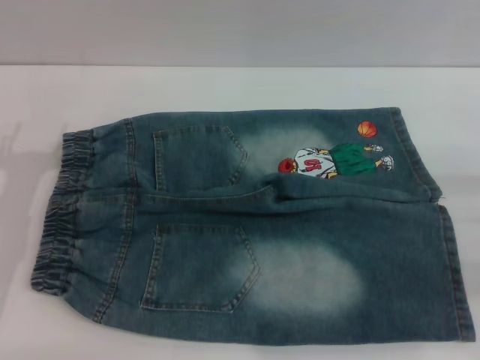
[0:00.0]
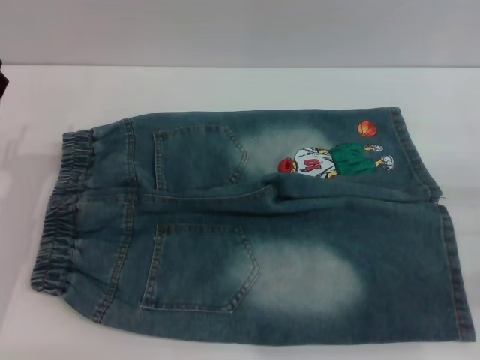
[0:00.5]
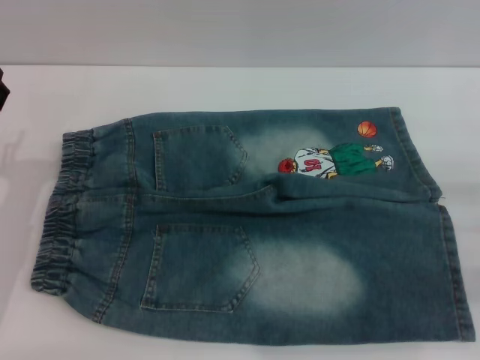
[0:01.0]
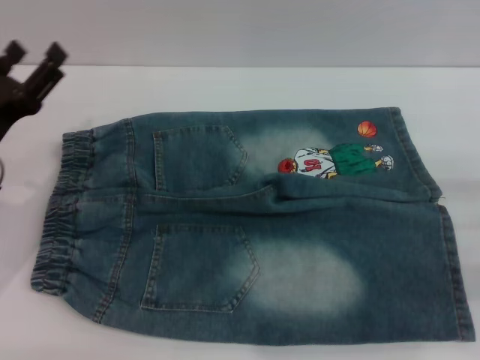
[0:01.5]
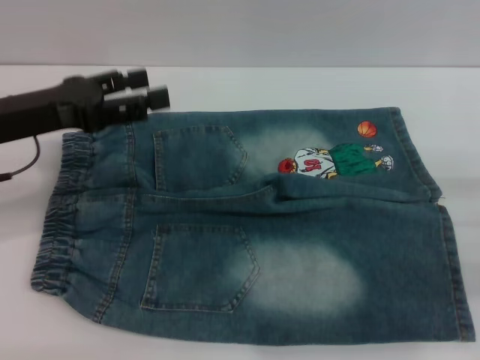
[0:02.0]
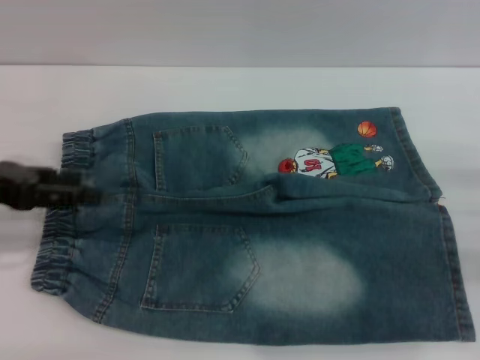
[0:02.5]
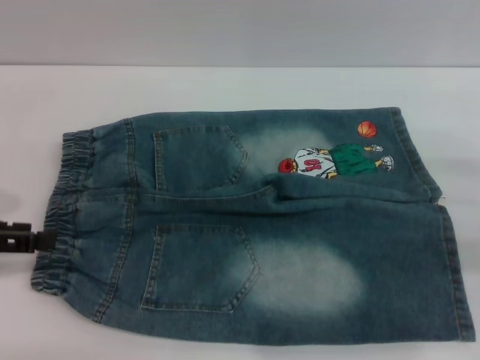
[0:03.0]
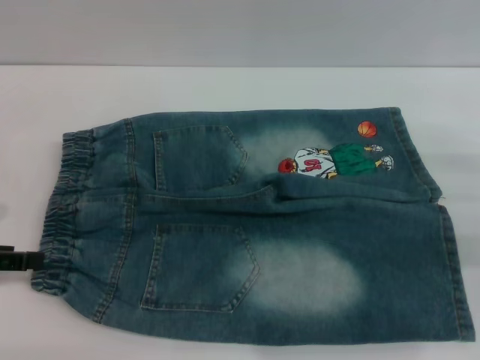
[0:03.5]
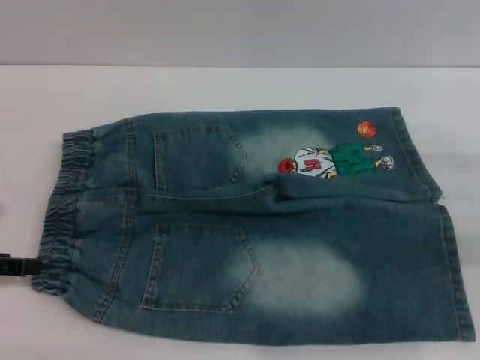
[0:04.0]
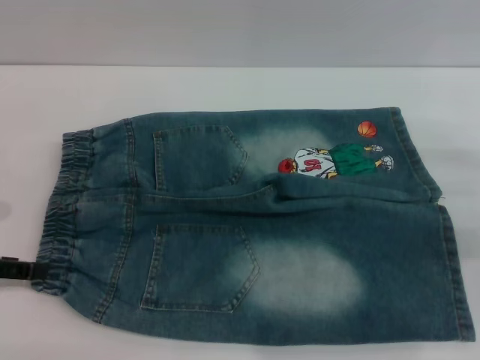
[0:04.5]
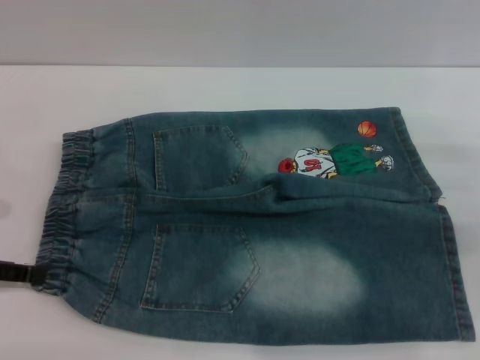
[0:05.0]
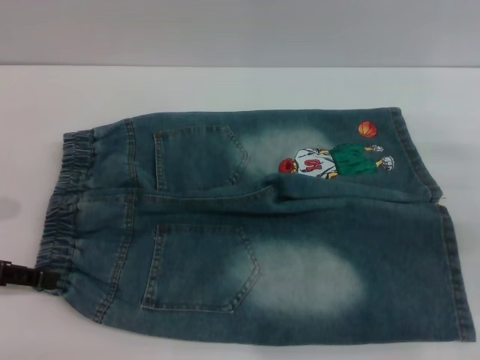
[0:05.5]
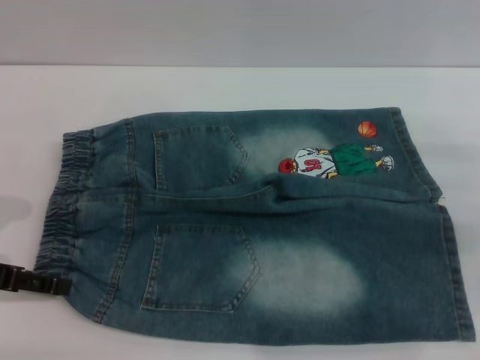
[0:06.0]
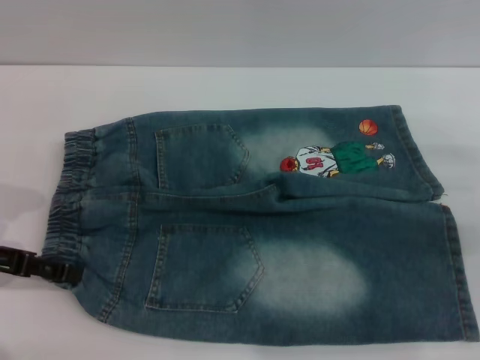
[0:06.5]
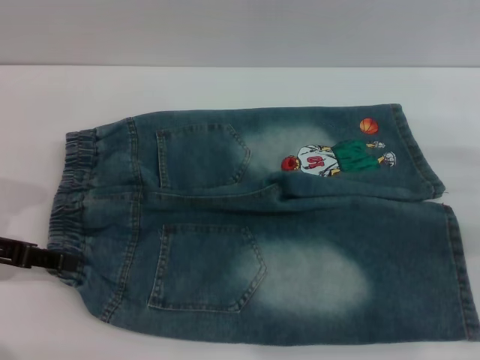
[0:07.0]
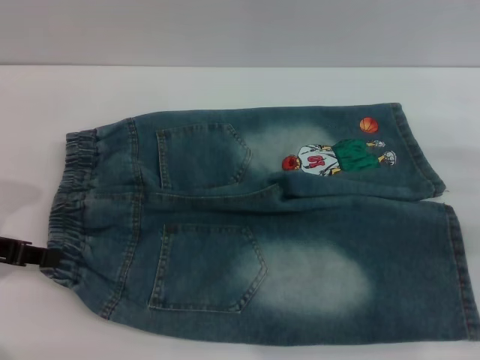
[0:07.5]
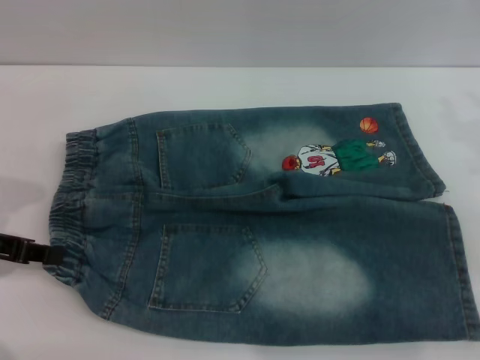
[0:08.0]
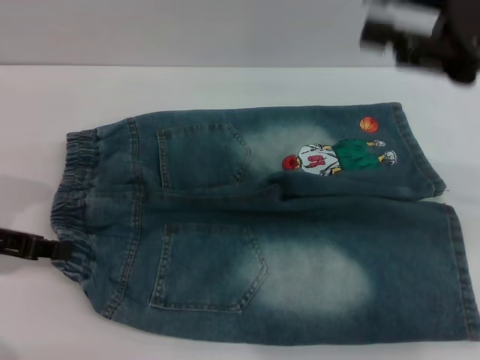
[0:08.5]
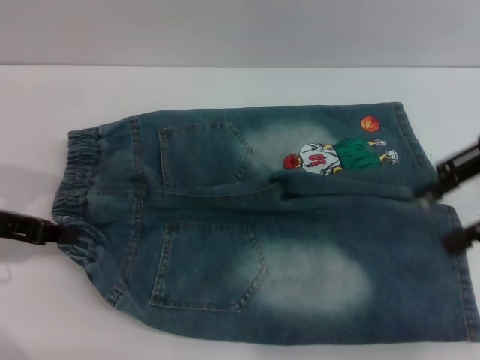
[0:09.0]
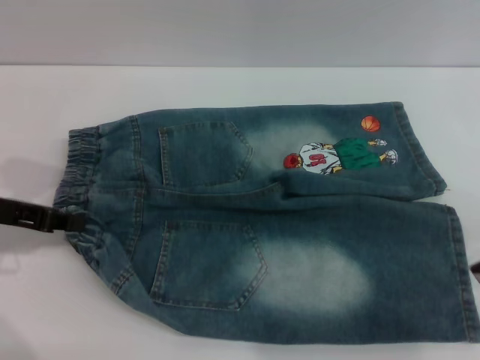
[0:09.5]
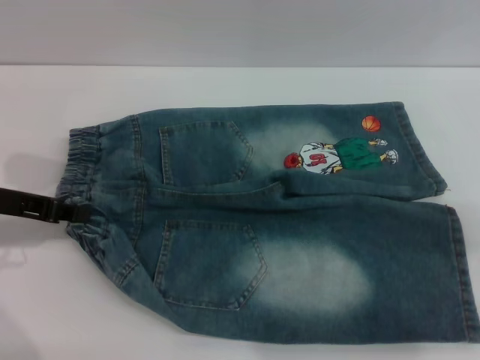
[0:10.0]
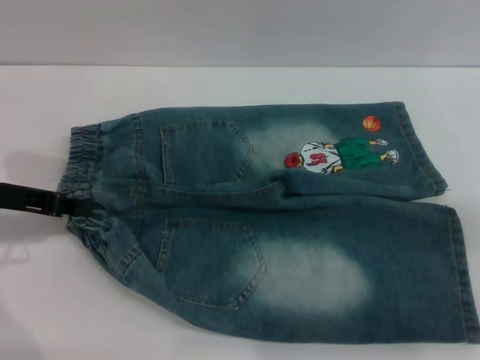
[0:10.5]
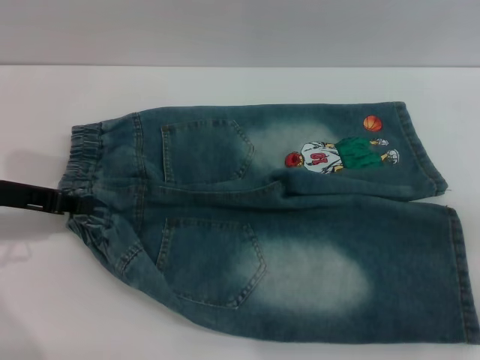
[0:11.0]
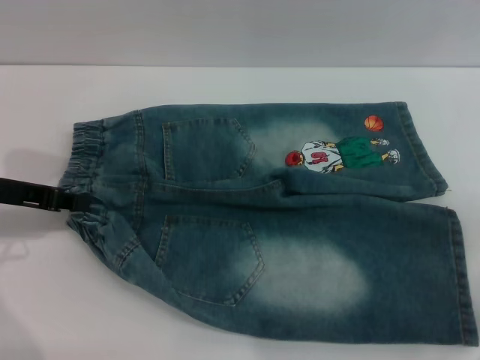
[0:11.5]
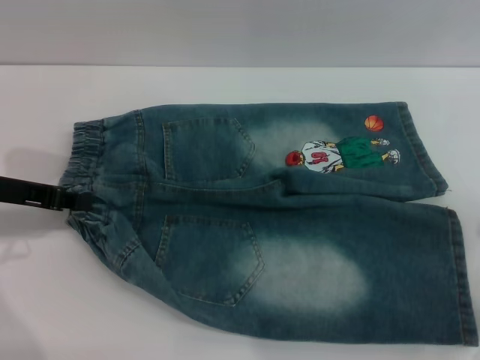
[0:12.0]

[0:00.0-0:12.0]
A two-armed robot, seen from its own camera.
0:00.0 to 0:02.0: The left gripper shifts approximately 10 cm upward.
0:02.0 to 0:04.0: The left gripper shifts about 10 cm to the left and backward.
0:04.0 to 0:06.0: The grippers stay close to where they were, moving slightly.
0:06.0 to 0:08.0: The left gripper closes.
0:08.0 to 0:10.0: The right gripper goes roughly 10 cm to the right, backward and upward.
0:10.0 to 0:12.0: The right gripper changes place by about 5 cm.

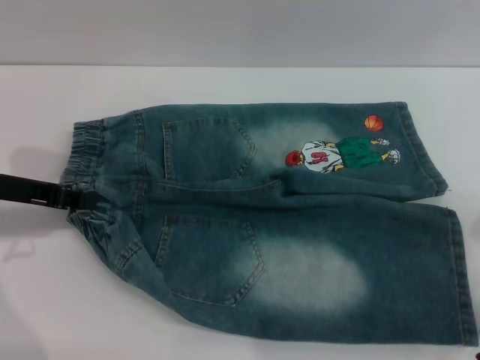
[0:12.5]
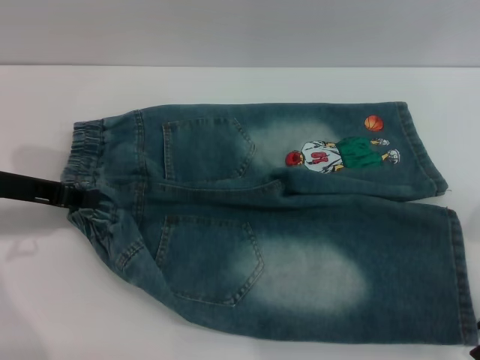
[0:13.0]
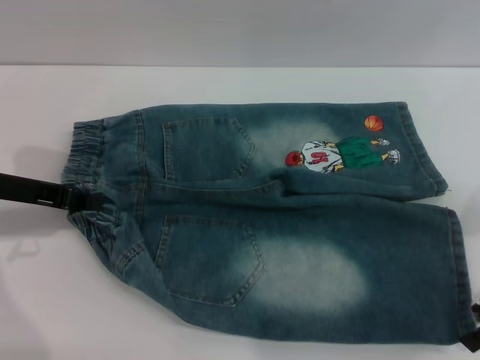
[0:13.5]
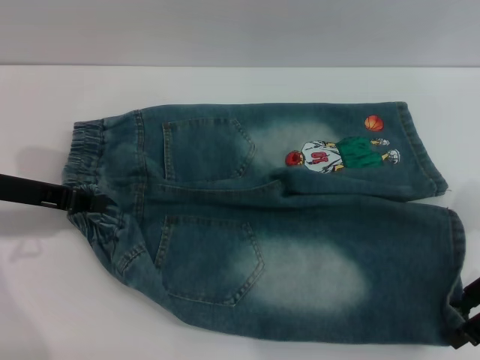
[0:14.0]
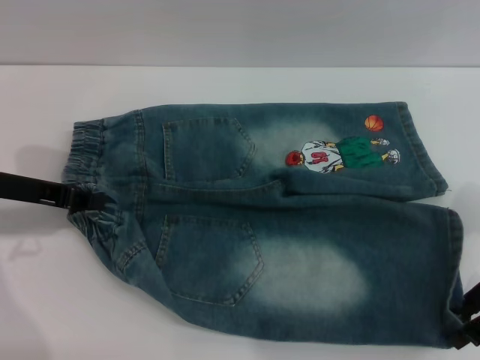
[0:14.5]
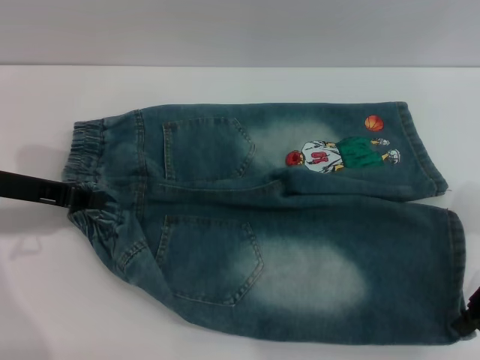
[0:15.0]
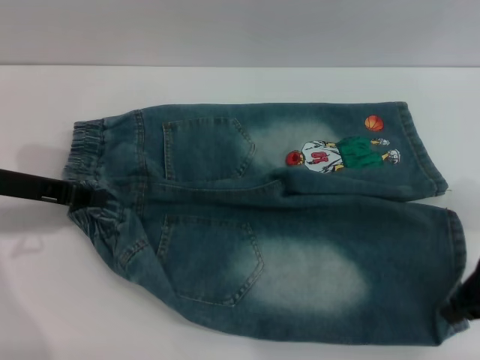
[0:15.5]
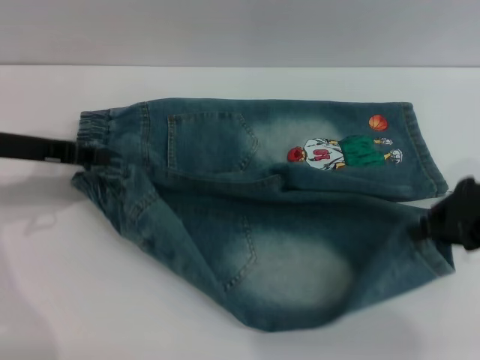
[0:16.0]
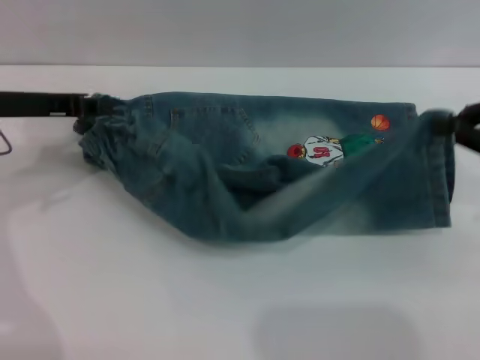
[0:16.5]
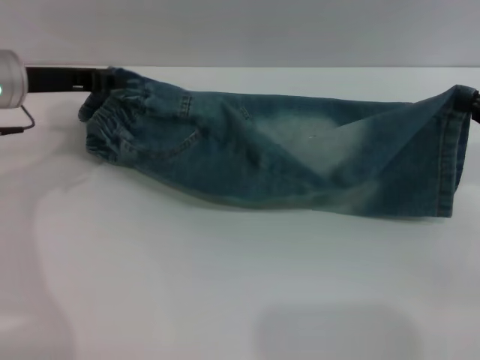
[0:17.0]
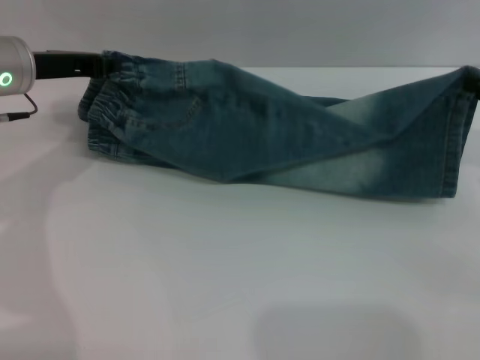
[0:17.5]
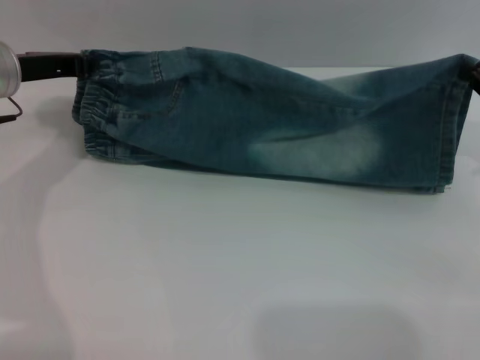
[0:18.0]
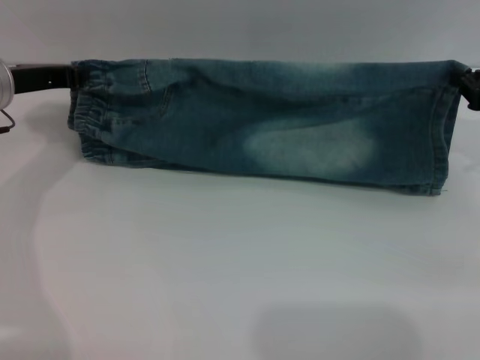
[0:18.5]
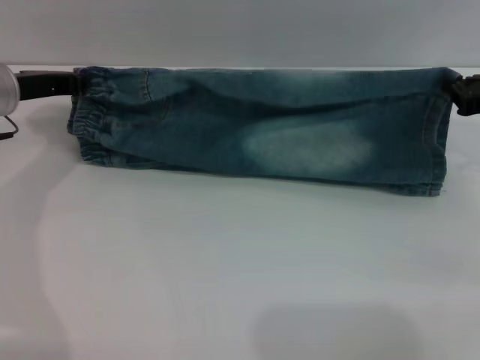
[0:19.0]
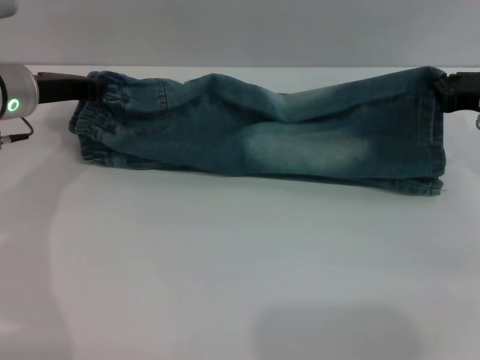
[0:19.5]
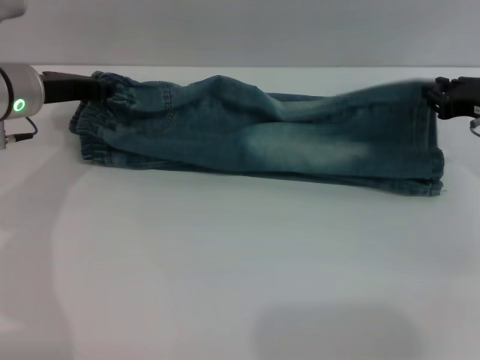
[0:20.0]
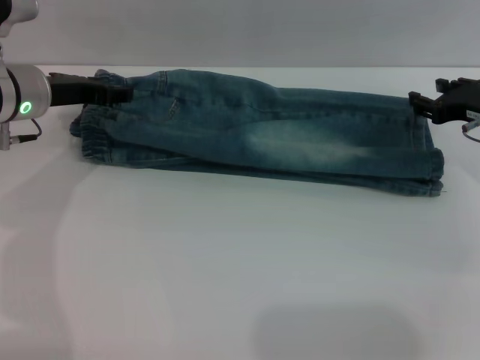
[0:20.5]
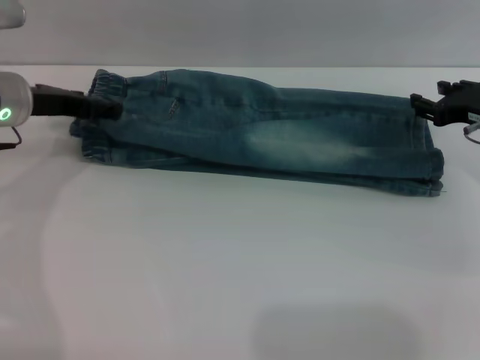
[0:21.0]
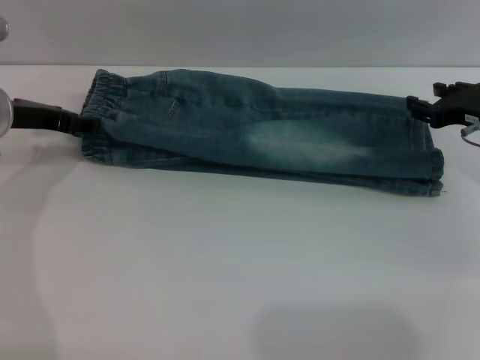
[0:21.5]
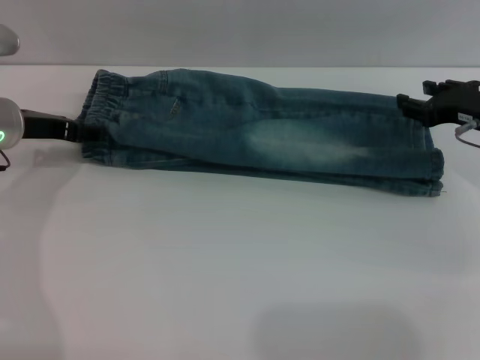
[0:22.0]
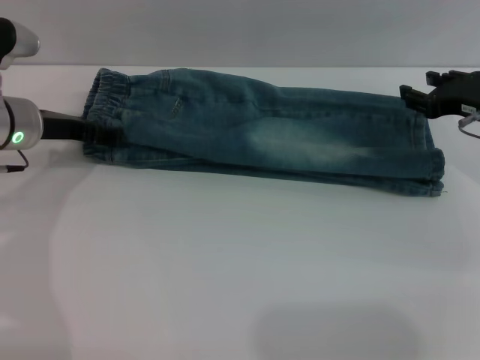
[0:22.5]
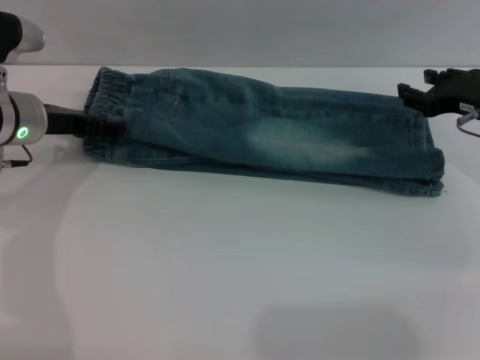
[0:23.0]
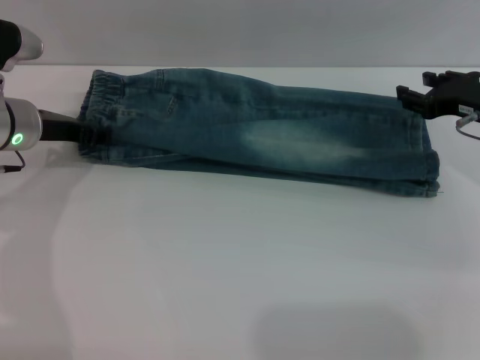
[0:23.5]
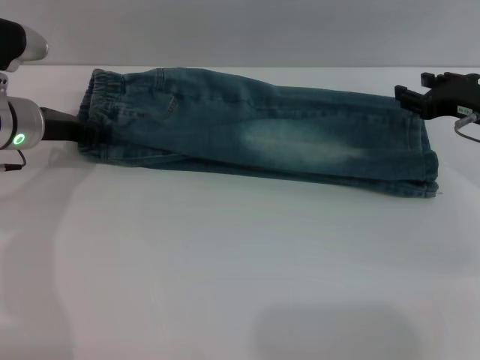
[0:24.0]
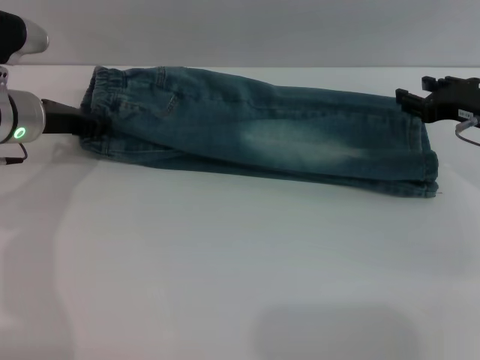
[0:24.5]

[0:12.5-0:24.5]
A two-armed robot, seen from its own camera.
Step, 0:12.5 to 0:21.0: Fold the bottom of the pants upward with both grippers.
0:12.5 to 0:14.5: There are only small adjustments of the grippers.
0:14.5 to 0:16.5: The right gripper shifts some 5 cm upward, and closes its fingers, while the left gripper shifts by about 5 cm.
0:16.5 to 0:18.5: The right gripper heads downward and forward, covering about 10 cm.
0:18.5 to 0:20.5: The left gripper opens, while the right gripper moves some 5 cm, and opens.
0:20.5 to 0:22.5: The left gripper opens.
0:22.5 to 0:24.5: The left gripper closes up.

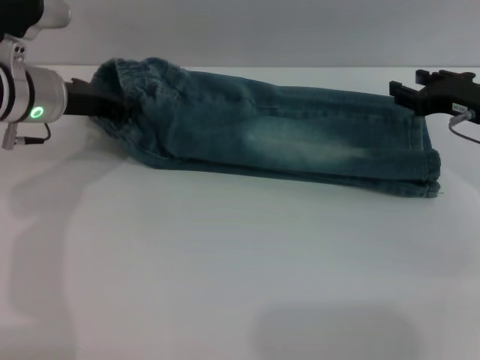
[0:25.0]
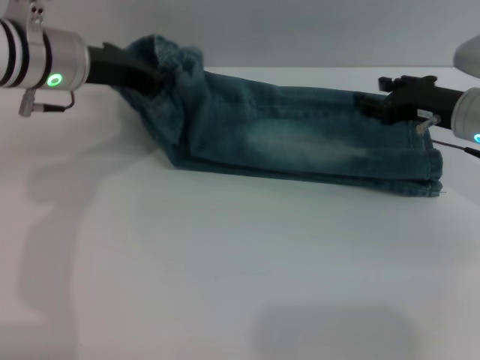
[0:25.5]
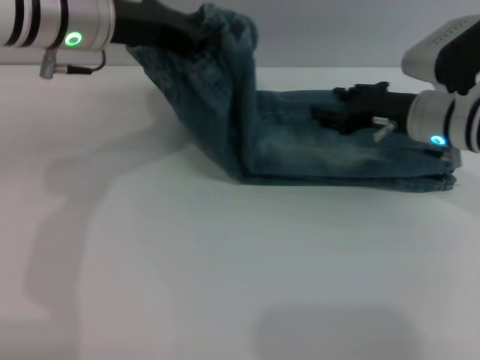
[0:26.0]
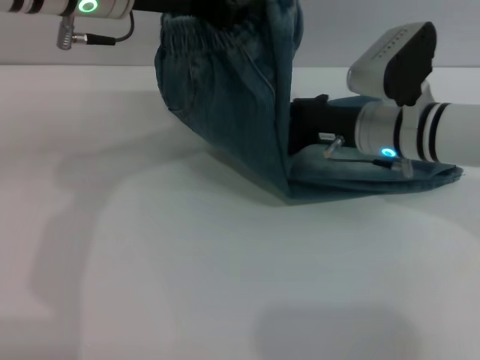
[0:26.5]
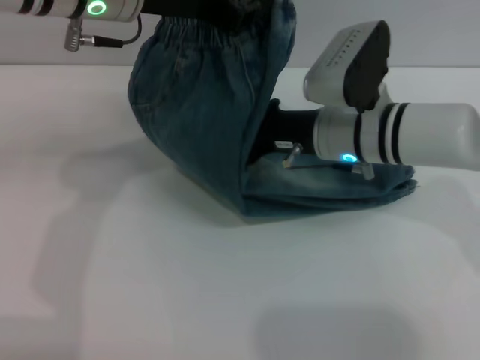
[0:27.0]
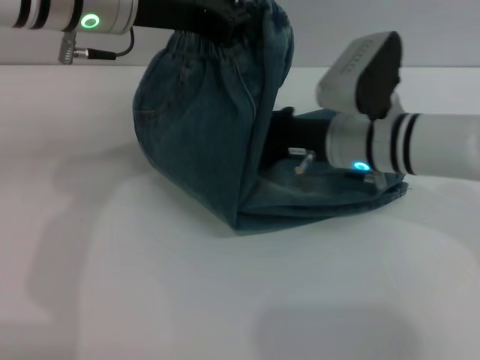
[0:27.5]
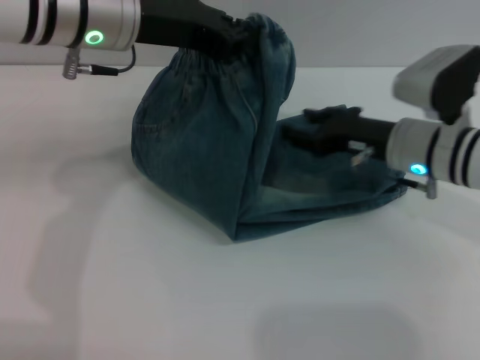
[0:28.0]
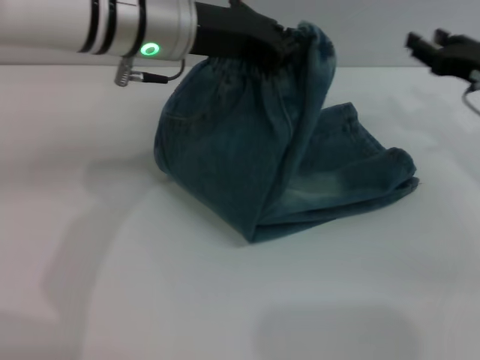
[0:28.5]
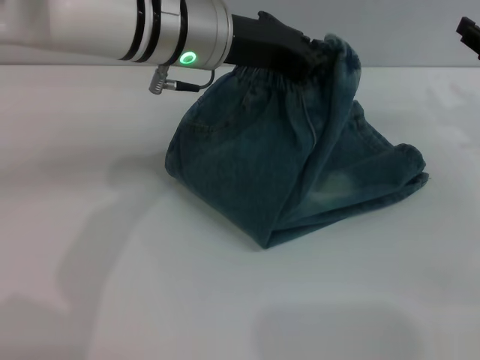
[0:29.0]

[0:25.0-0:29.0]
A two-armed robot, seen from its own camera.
0:25.0 to 0:27.0: The right gripper moves to the left, roughly 15 cm; the left gripper shifts some 15 cm upward and to the right.
0:27.0 to 0:29.0: The left gripper heads to the right, covering some 5 cm; the right gripper travels to the right by about 20 cm.
